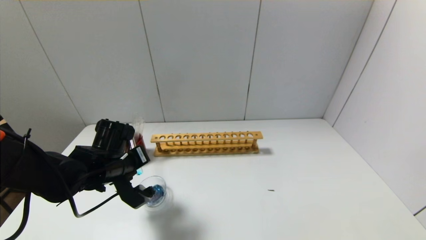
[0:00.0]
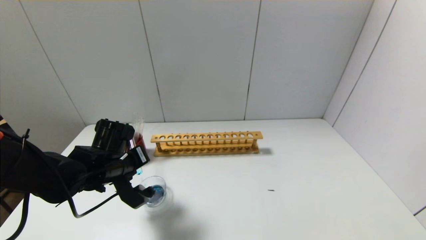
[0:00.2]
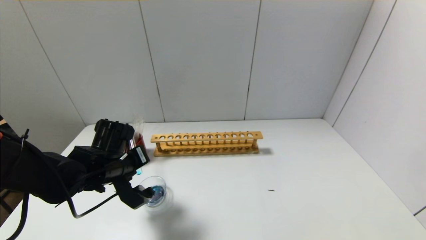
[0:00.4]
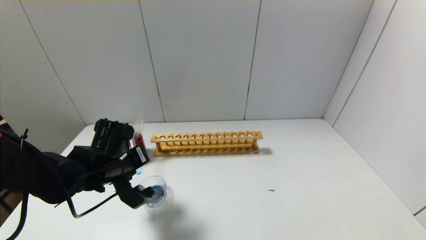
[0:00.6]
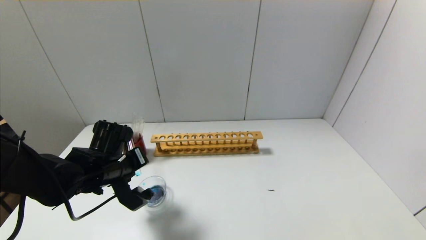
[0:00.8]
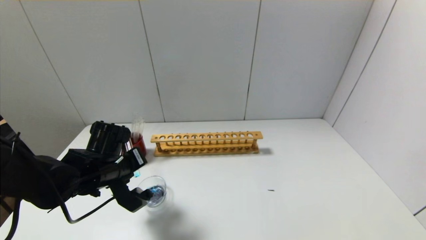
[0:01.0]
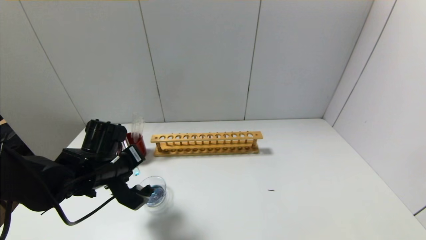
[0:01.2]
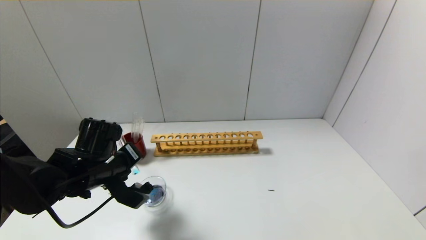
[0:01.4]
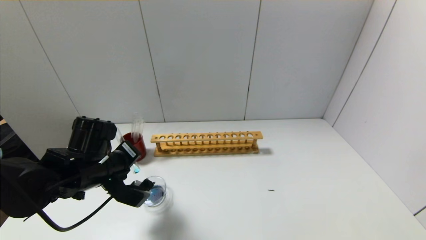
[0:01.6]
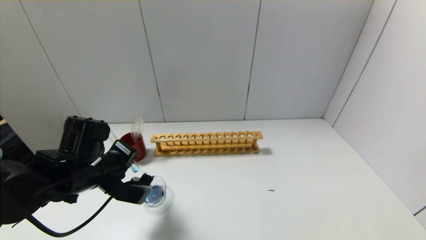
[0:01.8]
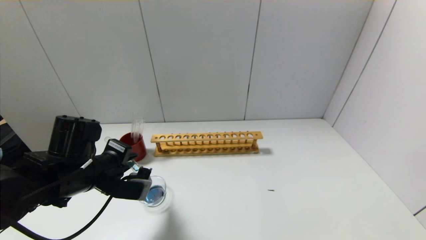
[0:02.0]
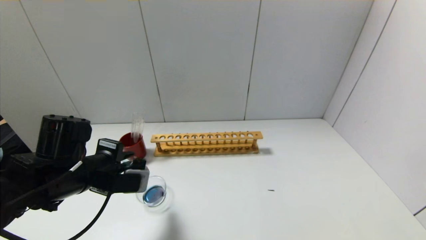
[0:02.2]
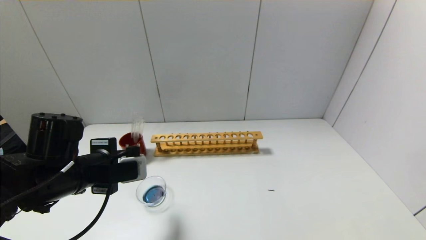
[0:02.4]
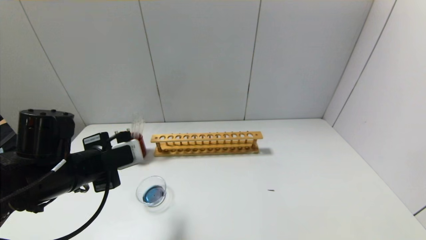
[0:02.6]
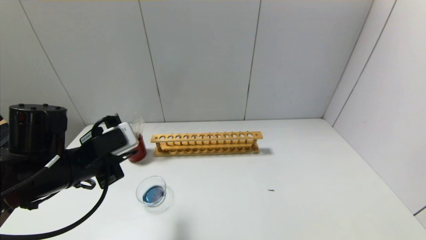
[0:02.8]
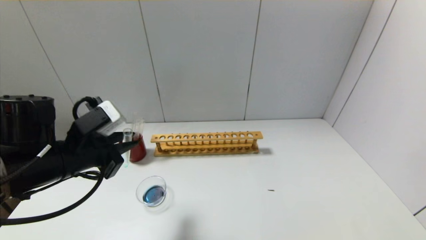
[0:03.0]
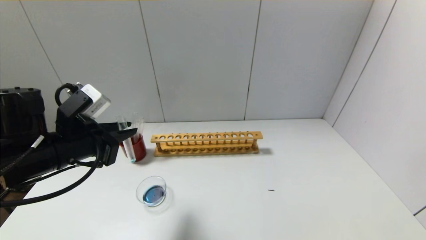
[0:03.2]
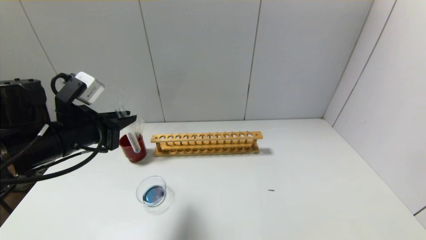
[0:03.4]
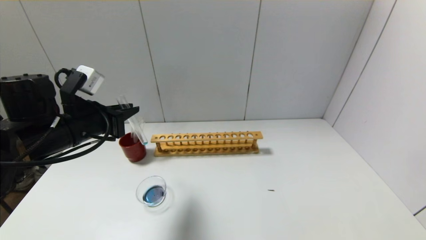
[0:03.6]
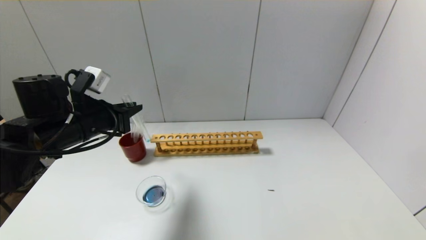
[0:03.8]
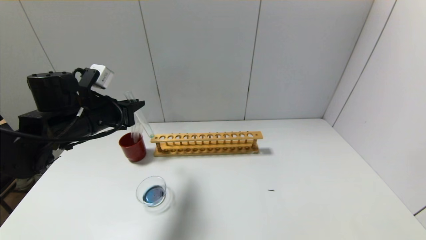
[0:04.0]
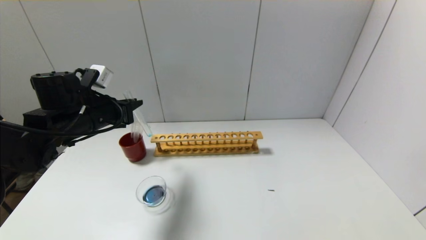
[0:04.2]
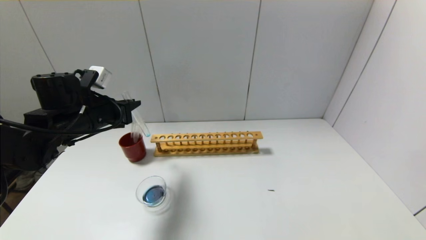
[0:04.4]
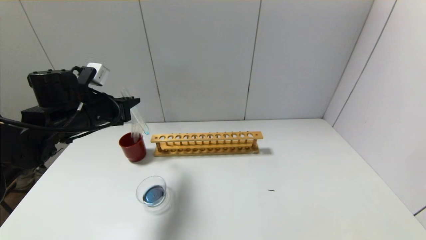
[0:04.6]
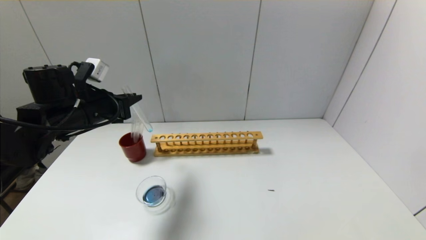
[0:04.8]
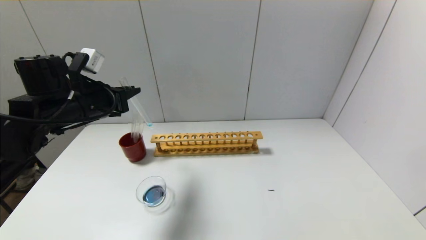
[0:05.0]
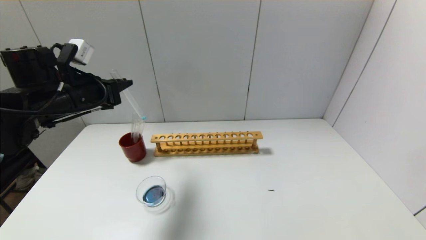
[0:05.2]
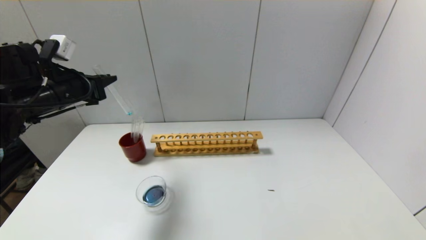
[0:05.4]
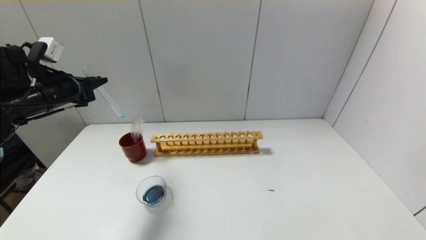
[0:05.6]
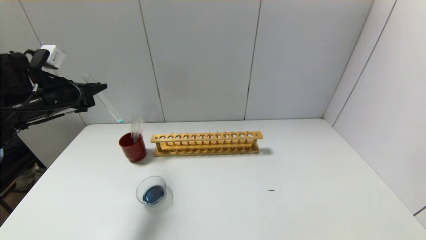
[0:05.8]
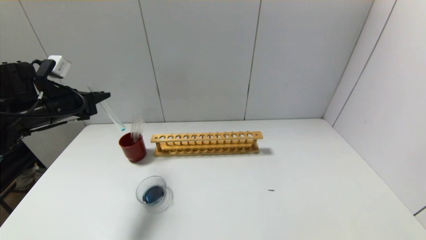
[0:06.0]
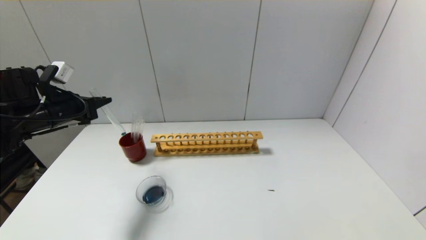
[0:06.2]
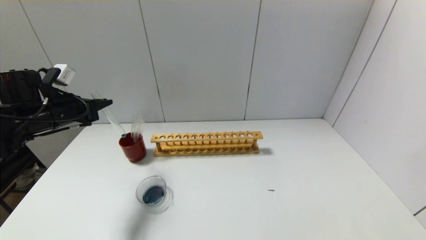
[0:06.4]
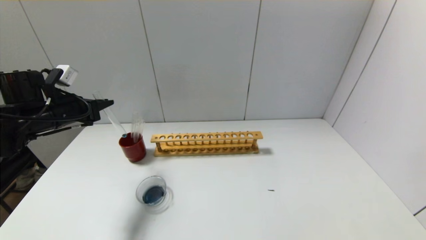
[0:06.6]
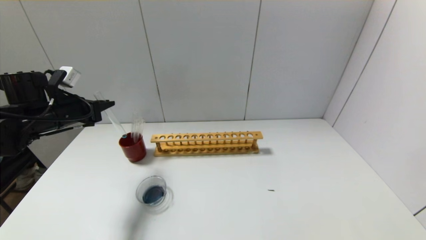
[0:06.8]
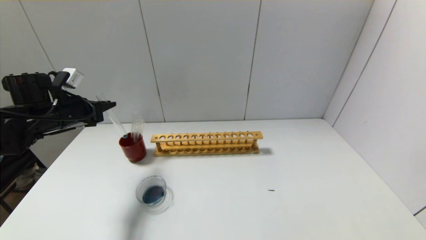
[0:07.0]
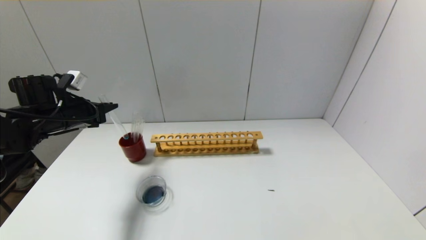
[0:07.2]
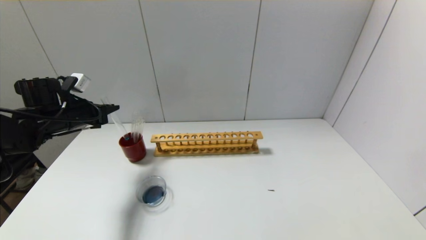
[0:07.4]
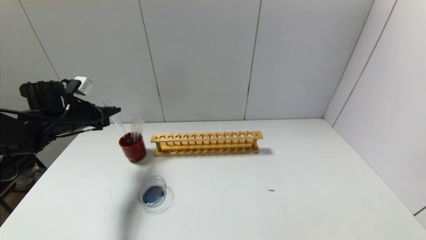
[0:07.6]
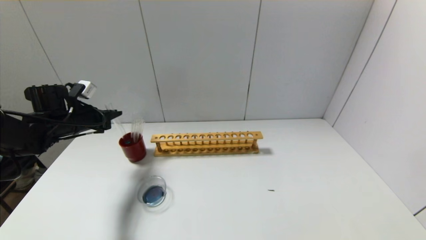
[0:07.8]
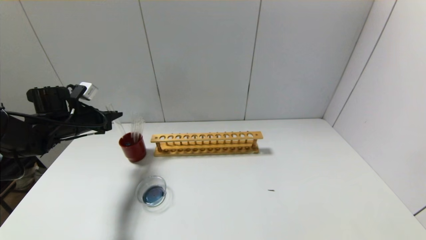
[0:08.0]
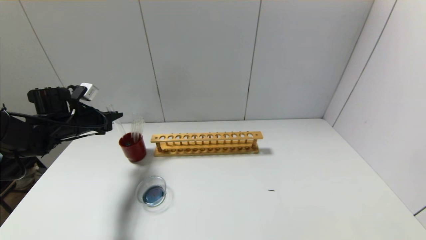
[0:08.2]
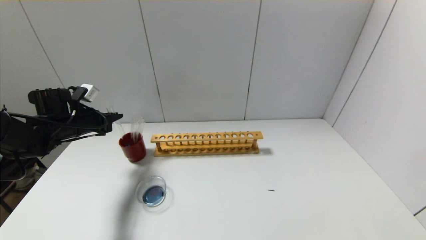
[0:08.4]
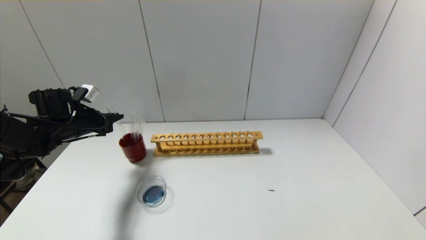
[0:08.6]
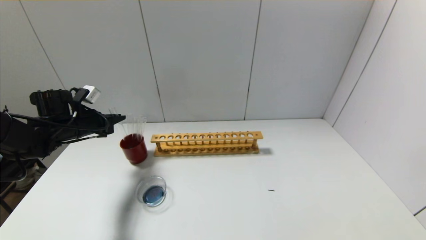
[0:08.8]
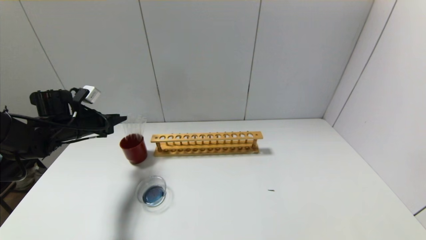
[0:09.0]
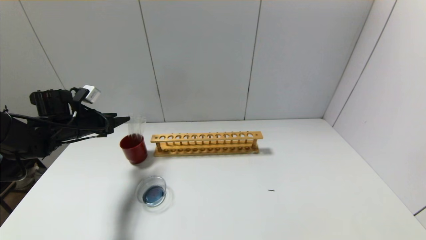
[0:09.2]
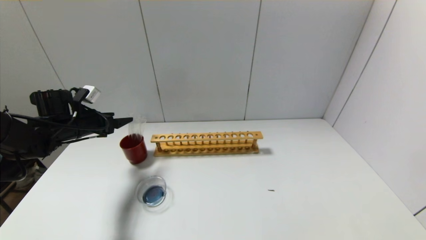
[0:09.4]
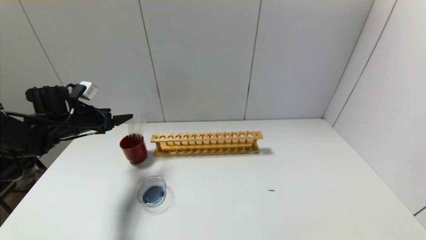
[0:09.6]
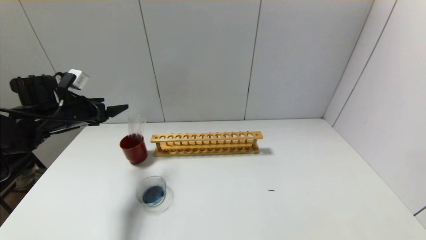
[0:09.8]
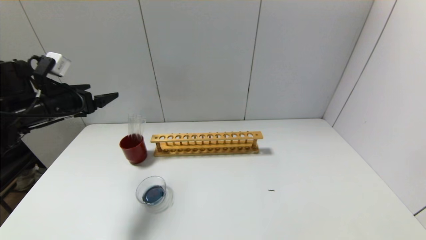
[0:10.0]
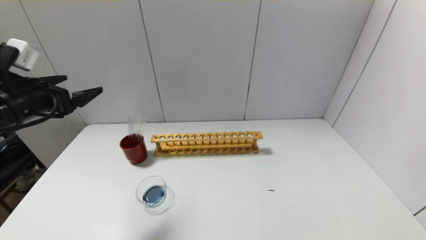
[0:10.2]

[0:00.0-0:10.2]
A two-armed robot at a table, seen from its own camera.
Step, 0:01.8 to 0:09.0: Place the test tube into the brown cup with the left gripper.
0:00.0 to 0:01.4: There are only small adjustments of the grippers.
0:01.4 to 0:03.0: The left gripper is displaced upward by about 5 cm.
0:03.0 to 0:04.4: The left gripper travels forward by some 10 cm.
0:04.4 to 0:05.8: The left gripper moves to the left, roughly 5 cm.
0:05.8 to 0:07.2: The left gripper heads downward, covering approximately 5 cm.
0:07.2 to 0:08.8: The grippers move only a little.
0:08.8 to 0:10.2: The left gripper shifts about 15 cm backward and upward, and opens its fingers.

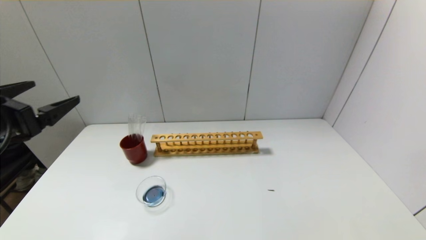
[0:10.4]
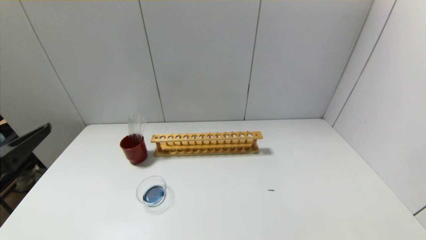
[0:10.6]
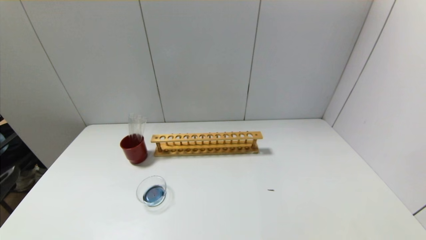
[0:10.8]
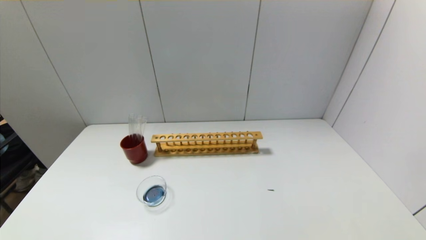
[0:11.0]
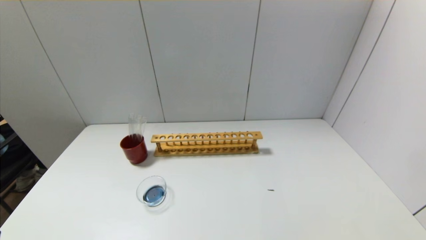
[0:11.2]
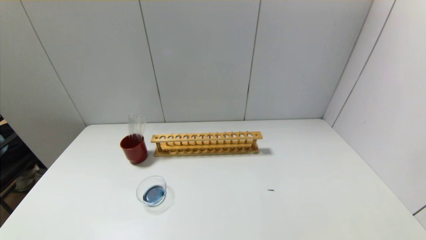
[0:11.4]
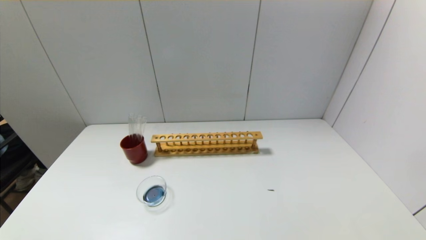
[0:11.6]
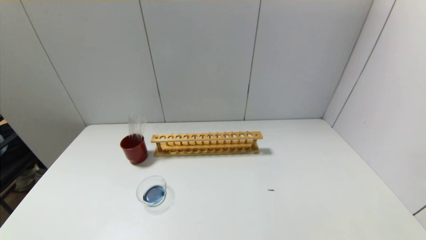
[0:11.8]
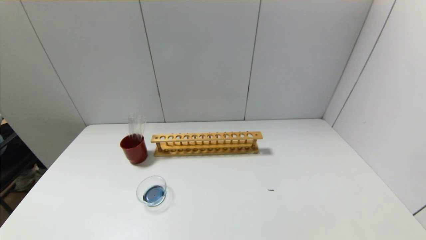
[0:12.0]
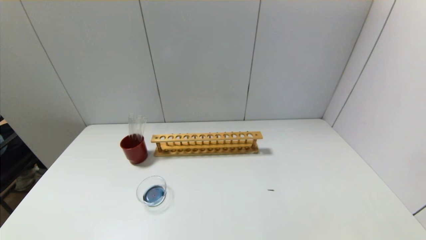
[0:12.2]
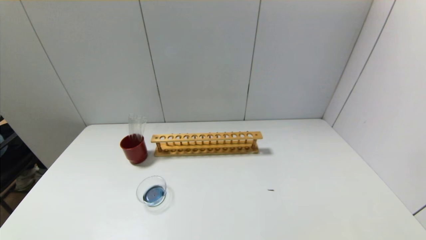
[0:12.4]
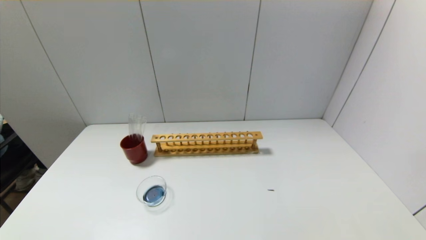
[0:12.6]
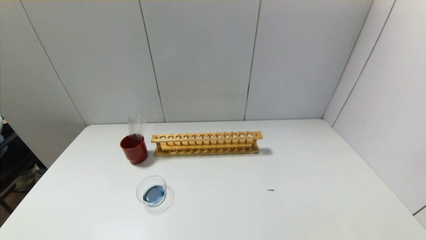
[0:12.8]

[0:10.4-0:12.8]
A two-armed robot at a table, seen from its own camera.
0:10.4 to 0:11.6: The left gripper travels backward and downward by some 25 cm.
